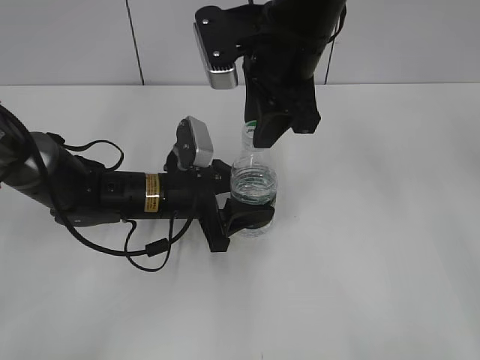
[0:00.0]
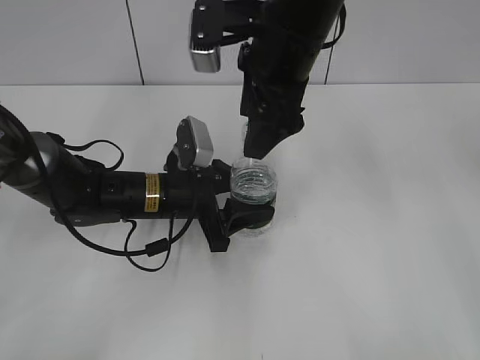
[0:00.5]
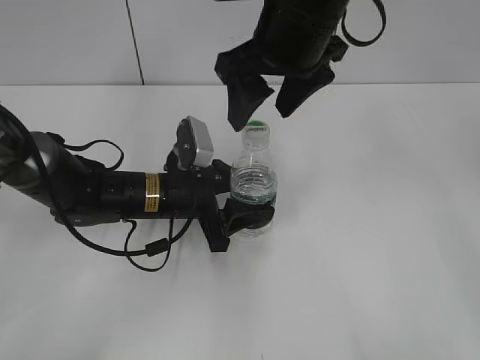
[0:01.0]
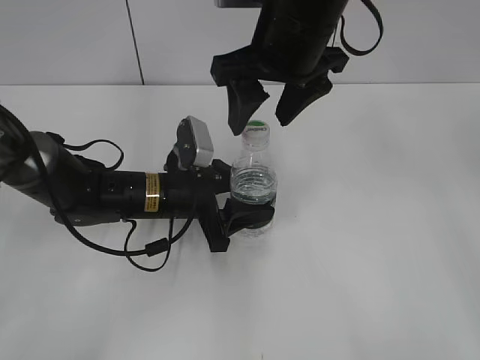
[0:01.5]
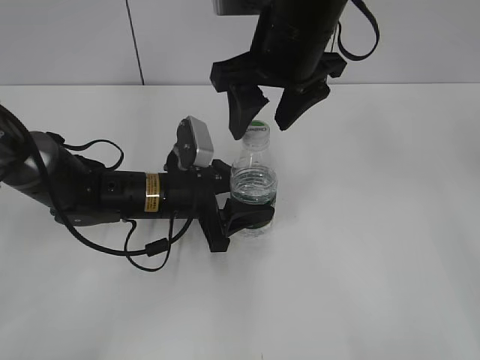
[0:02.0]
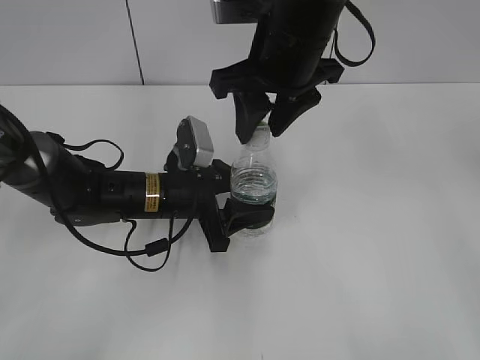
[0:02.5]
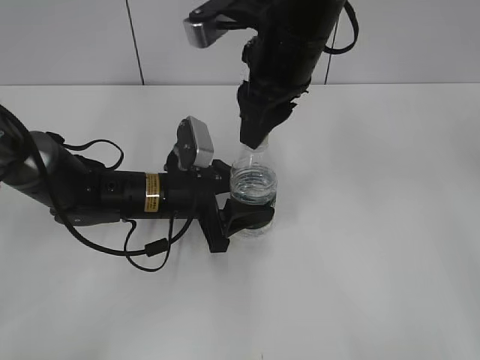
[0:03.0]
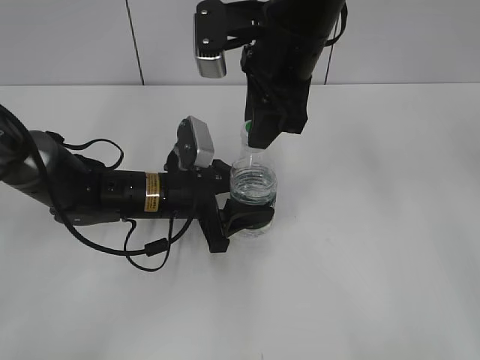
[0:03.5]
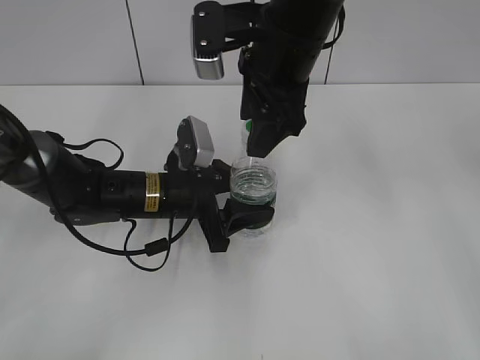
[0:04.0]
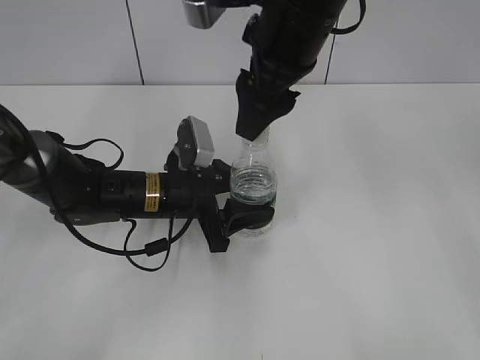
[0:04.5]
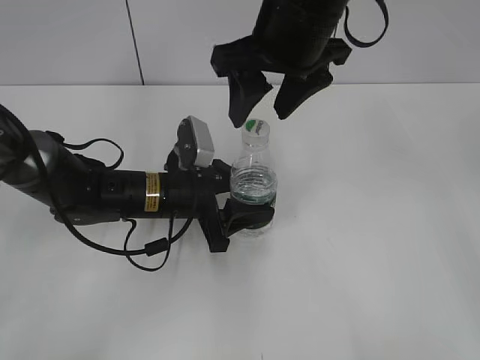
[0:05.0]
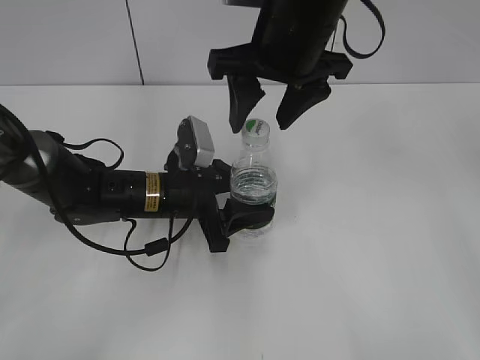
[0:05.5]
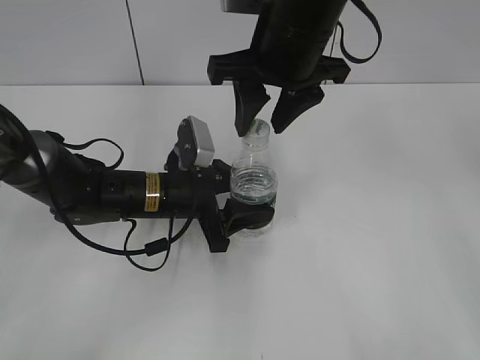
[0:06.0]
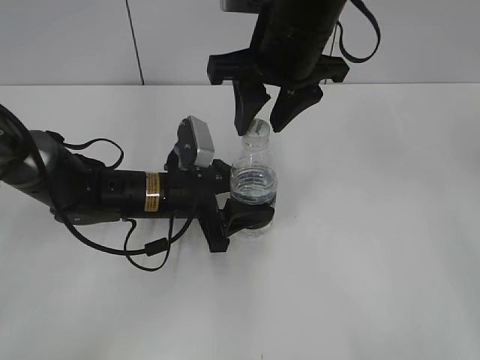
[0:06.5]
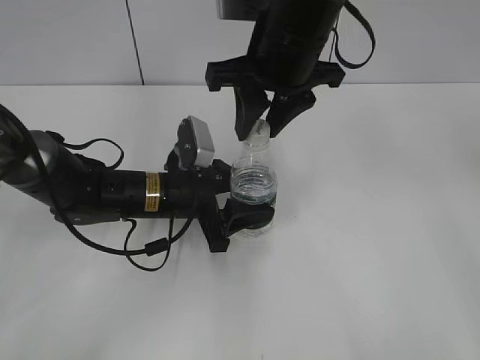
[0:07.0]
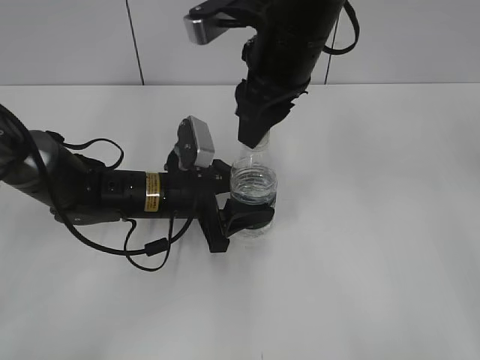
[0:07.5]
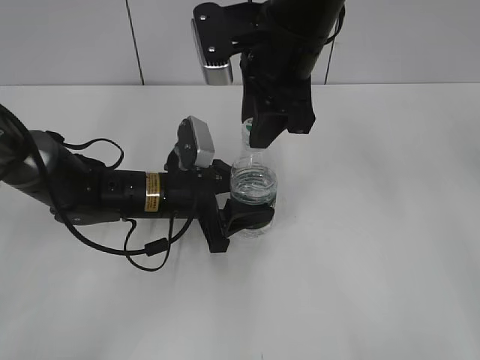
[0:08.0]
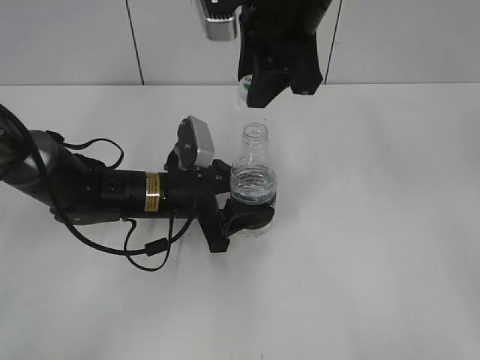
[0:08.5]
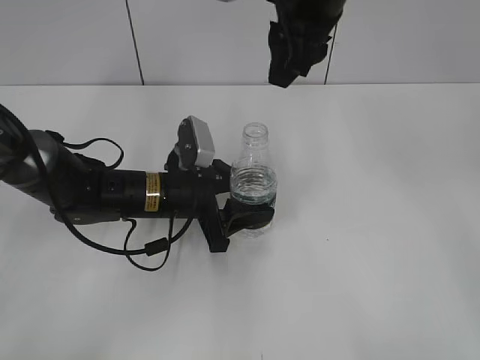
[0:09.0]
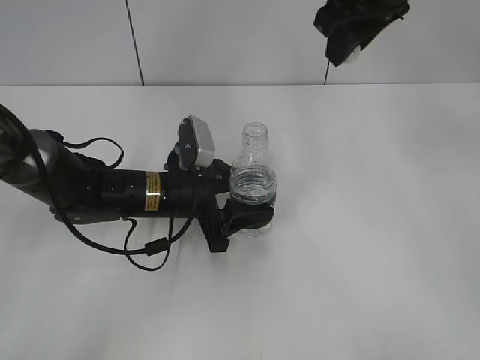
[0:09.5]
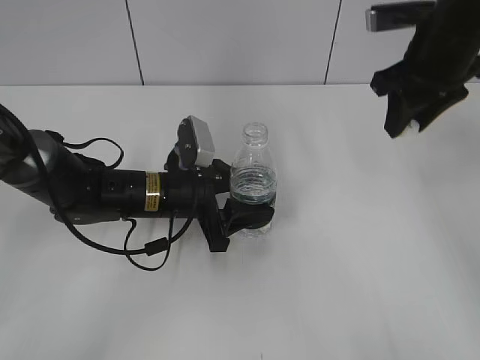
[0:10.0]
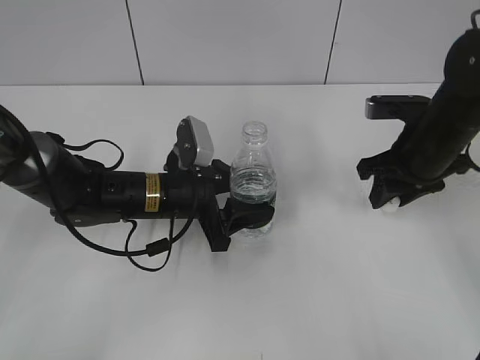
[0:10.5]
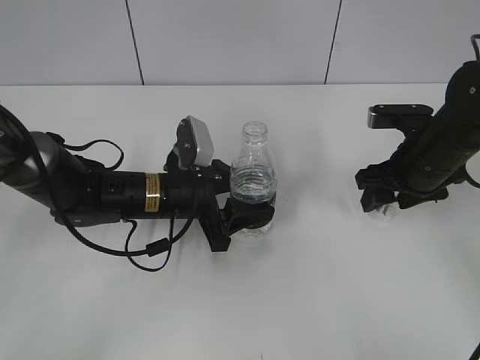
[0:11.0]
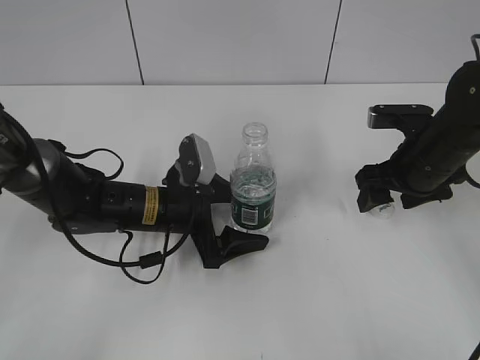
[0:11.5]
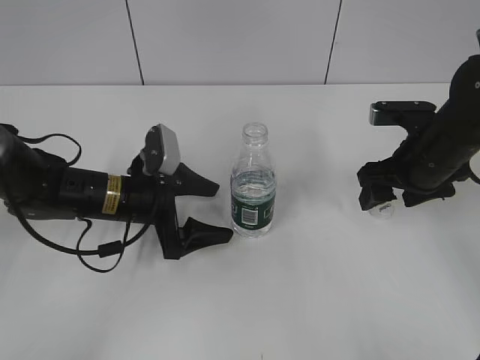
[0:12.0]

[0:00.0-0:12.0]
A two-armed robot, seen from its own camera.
Step, 0:00.0 to 0:08.0: Unscrew the bottle cap with the right gripper while holding the bottle with the left gripper.
0:00.0 to 0:02.0: The right gripper opens up.
0:02.0 to 0:04.0: The right gripper closes and opens again.
0:08.0 to 0:10.0: The right gripper goes roughly 15 cm to the right.
0:10.0 to 0:12.0: The right gripper moves downward, about 15 cm, and opens up; the left gripper opens its fingers.

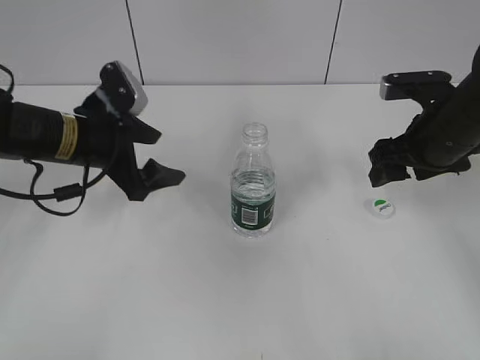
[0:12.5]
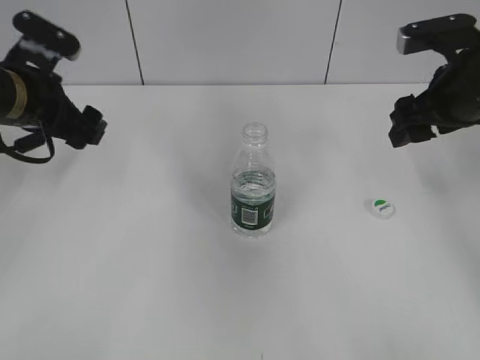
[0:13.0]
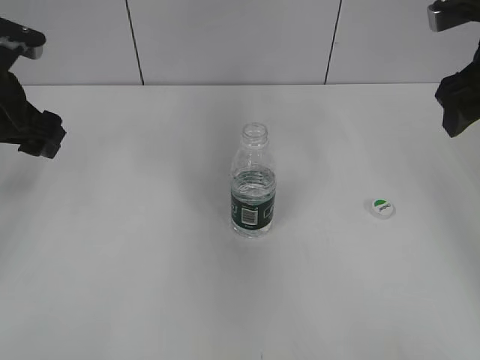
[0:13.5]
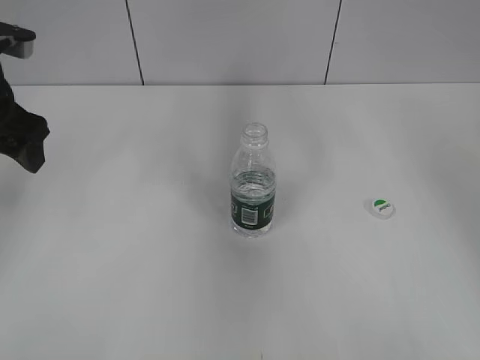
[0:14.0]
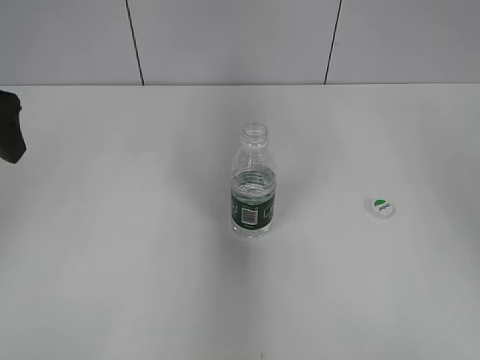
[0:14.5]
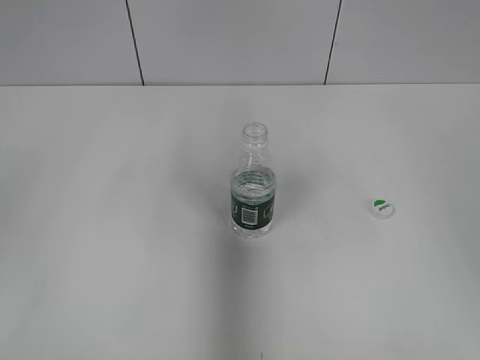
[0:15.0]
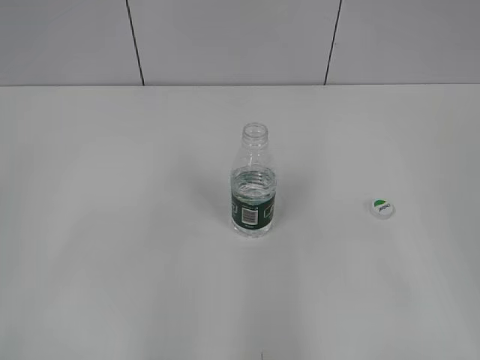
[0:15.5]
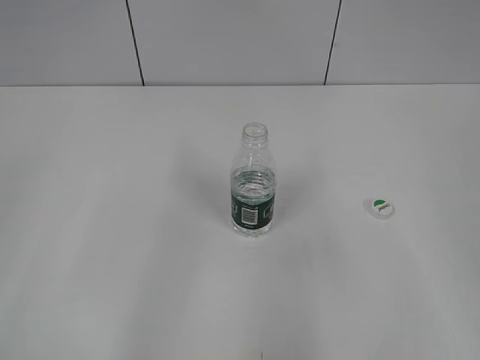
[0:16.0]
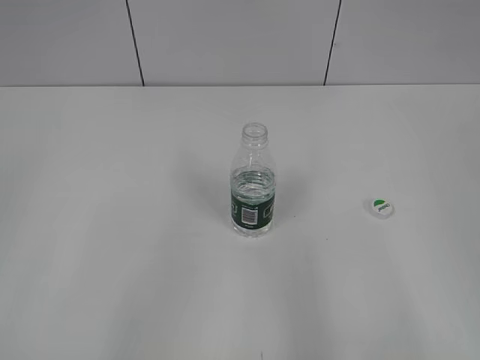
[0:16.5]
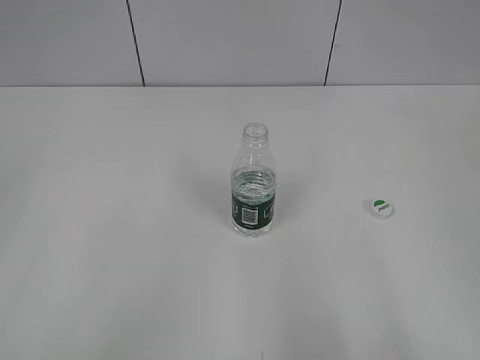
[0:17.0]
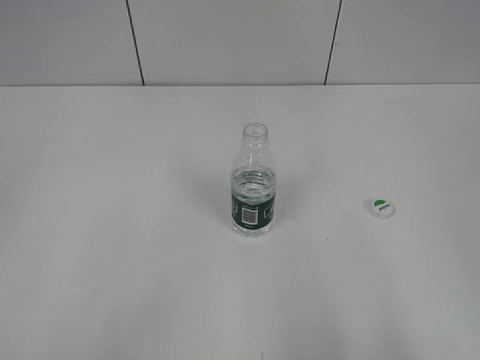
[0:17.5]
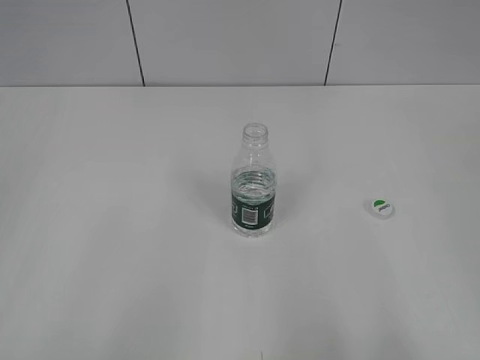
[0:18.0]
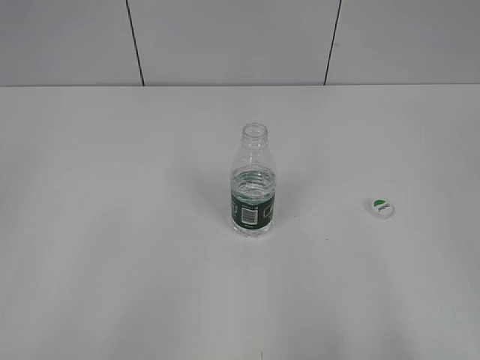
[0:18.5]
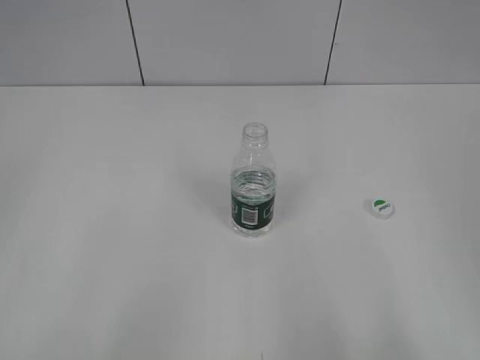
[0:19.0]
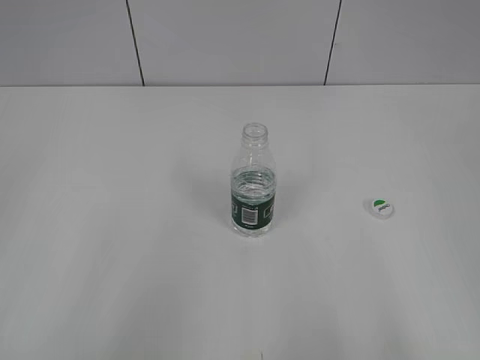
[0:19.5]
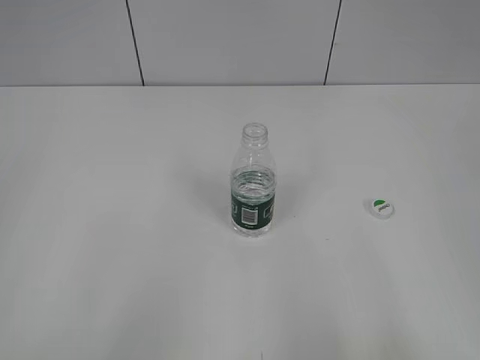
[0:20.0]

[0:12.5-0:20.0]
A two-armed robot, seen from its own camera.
0:12.5 to 0:14.5: The left gripper shifts some 20 cm upward, to the left and backward; the right gripper travels upward and backward by about 20 cm.
0:14.5 to 0:16.5: Both grippers move backward, approximately 25 cm.
0:18.0 to 0:20.0: The two grippers keep their place.

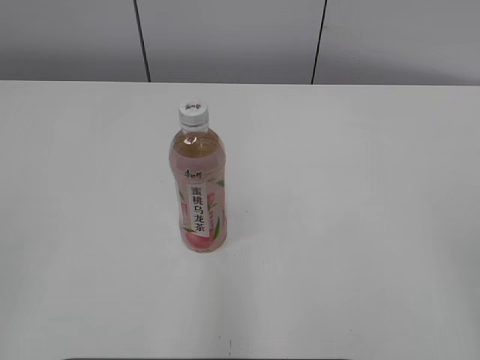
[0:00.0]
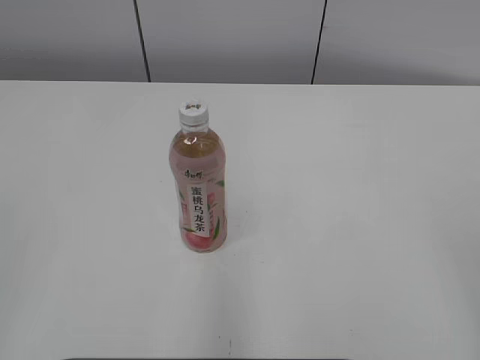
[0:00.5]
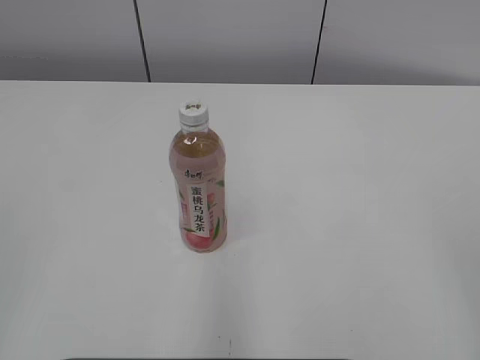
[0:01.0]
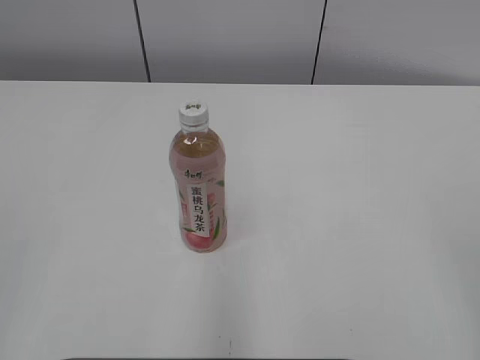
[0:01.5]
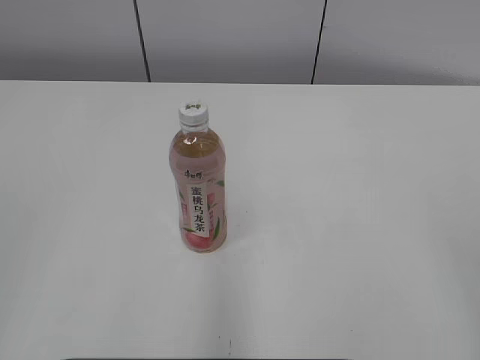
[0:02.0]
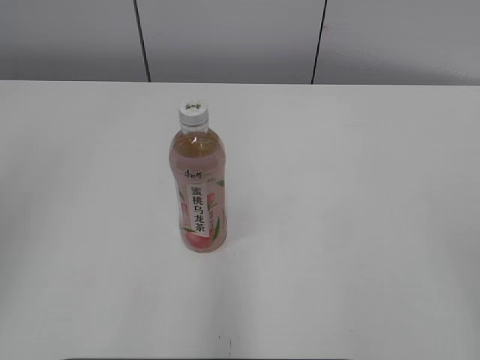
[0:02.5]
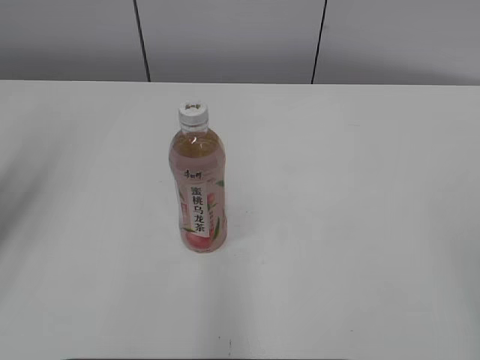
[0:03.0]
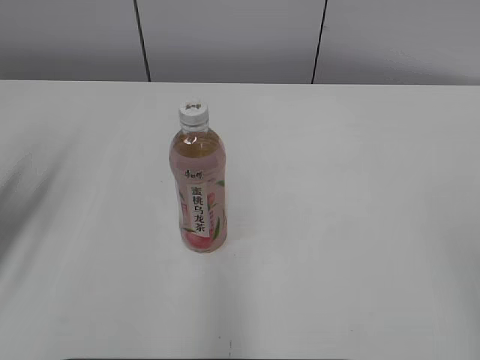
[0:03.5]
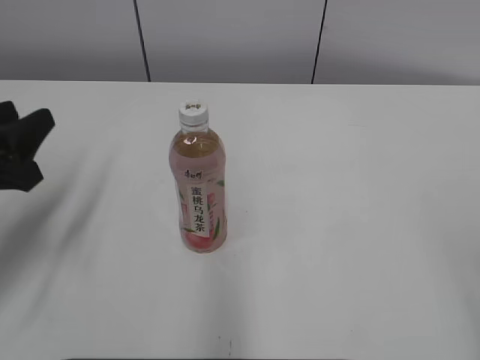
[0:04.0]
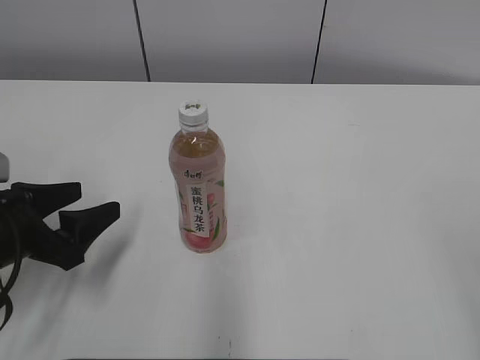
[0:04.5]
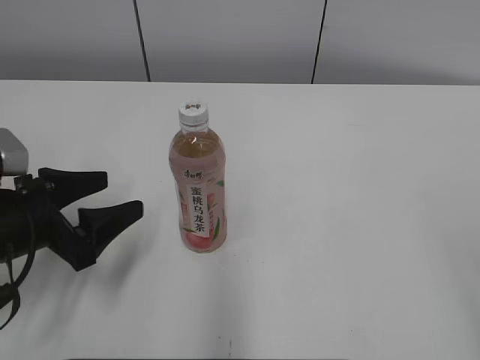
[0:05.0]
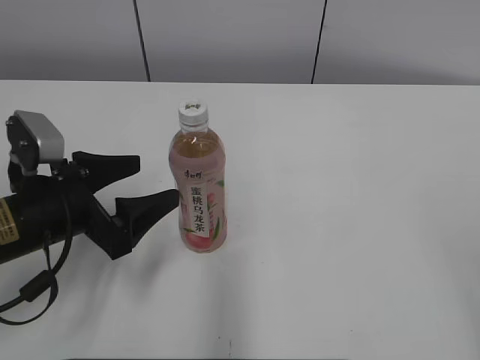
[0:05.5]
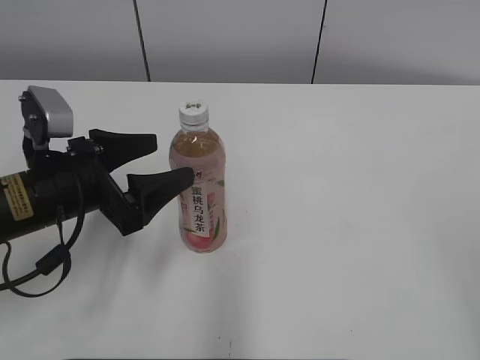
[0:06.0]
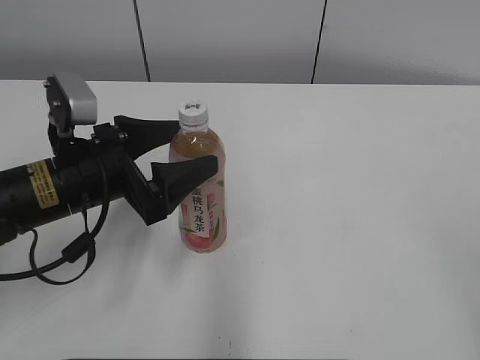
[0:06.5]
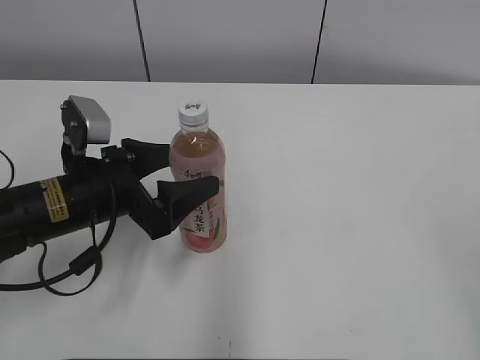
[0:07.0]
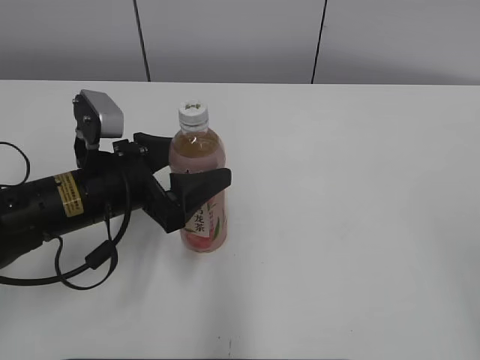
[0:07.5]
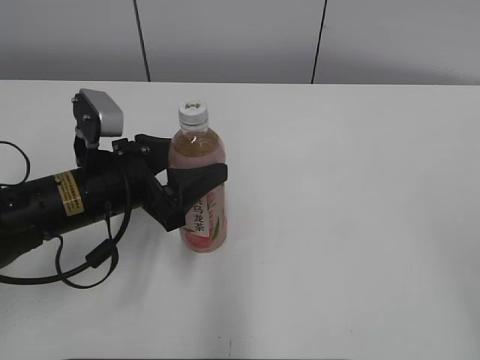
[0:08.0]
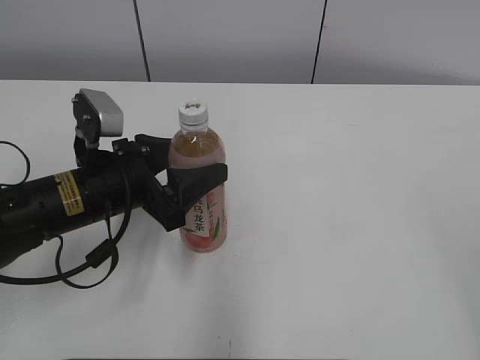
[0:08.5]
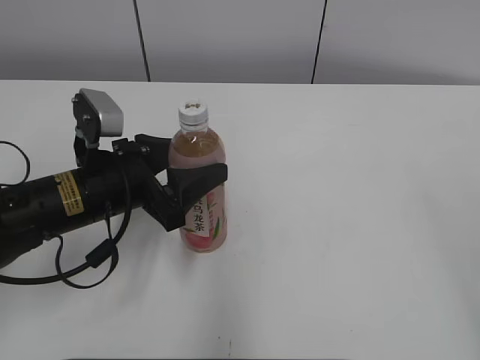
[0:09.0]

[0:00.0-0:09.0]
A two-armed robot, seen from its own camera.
Step, 0:00.0 to 0:07.5: Grab the Peach Oolong Tea with the left hand.
0:02.0 to 0:04.5: The left gripper heads forward and downward, covering roughly 30 cm, and opens.
0:04.5 to 0:07.0: The left gripper heads to the right, covering approximately 10 cm, and opens up.
0:07.0 to 0:09.0: The left gripper closes.
